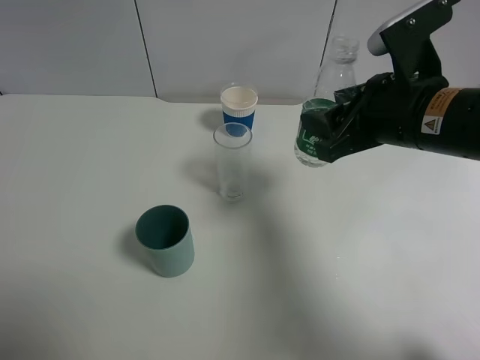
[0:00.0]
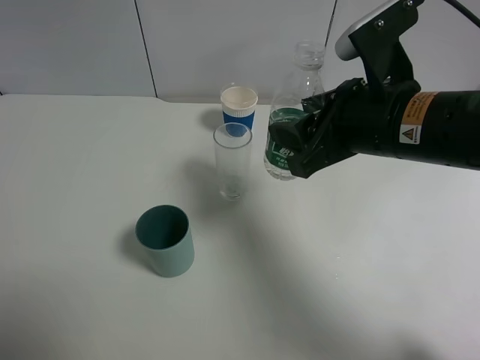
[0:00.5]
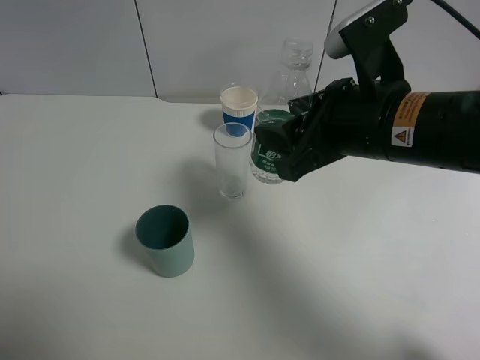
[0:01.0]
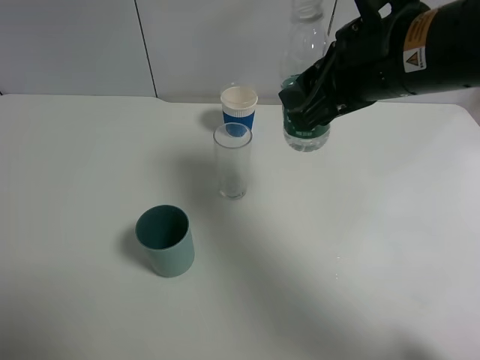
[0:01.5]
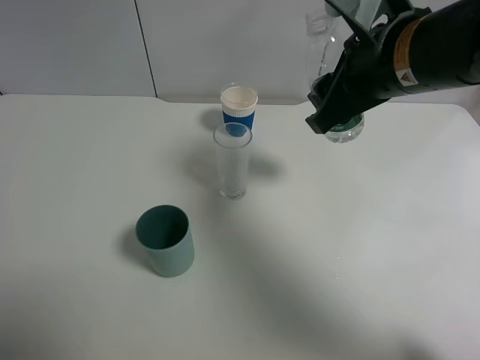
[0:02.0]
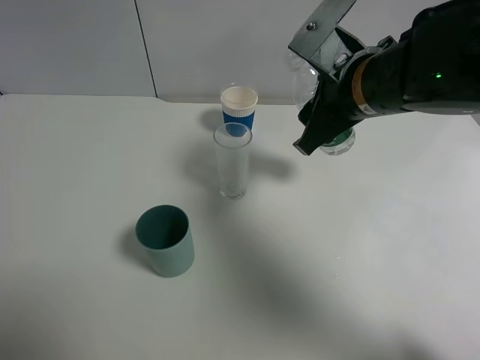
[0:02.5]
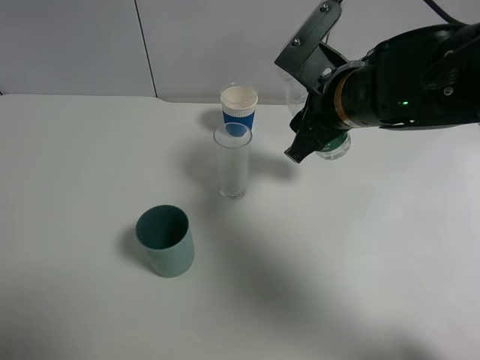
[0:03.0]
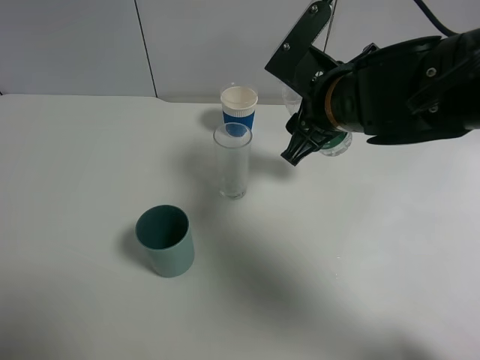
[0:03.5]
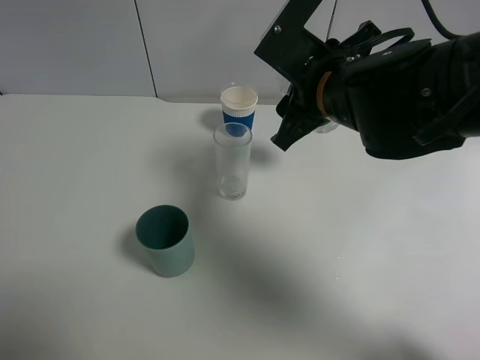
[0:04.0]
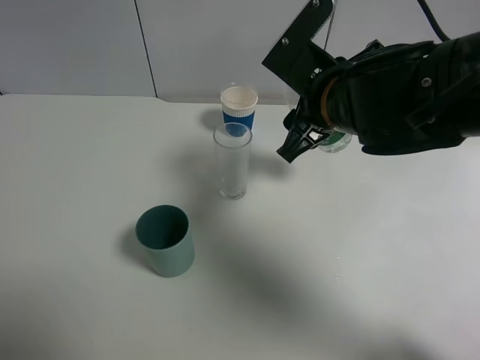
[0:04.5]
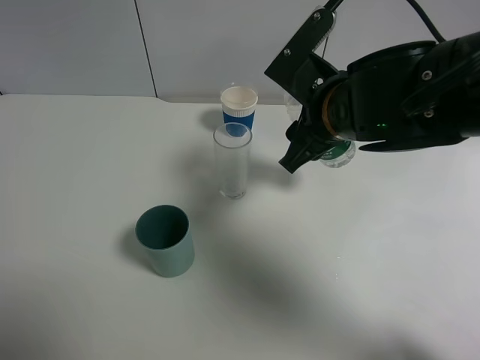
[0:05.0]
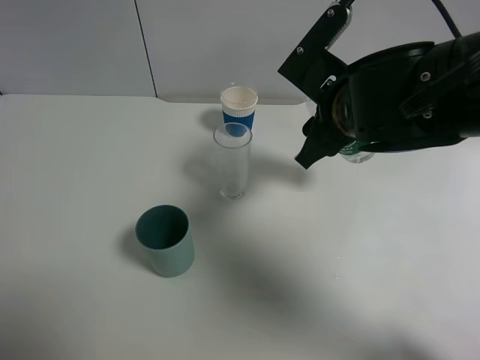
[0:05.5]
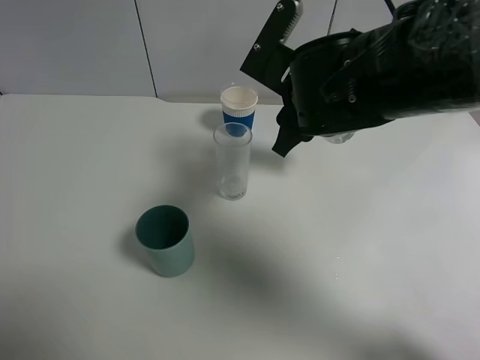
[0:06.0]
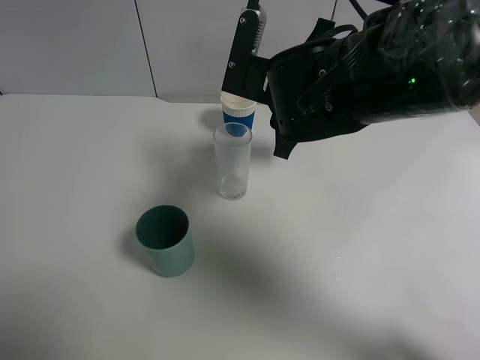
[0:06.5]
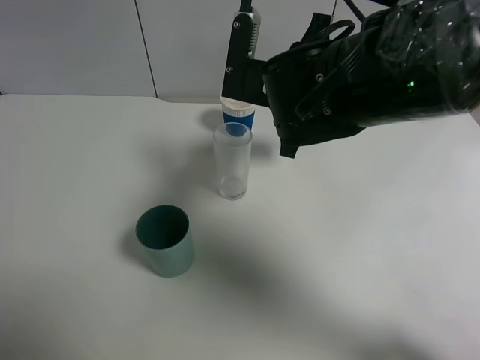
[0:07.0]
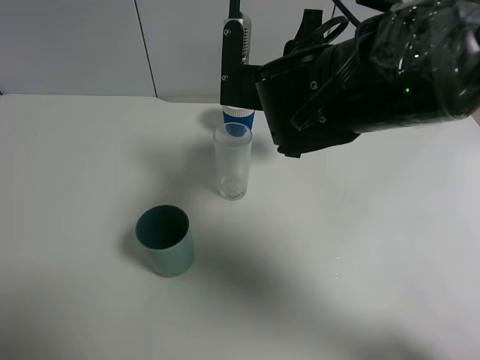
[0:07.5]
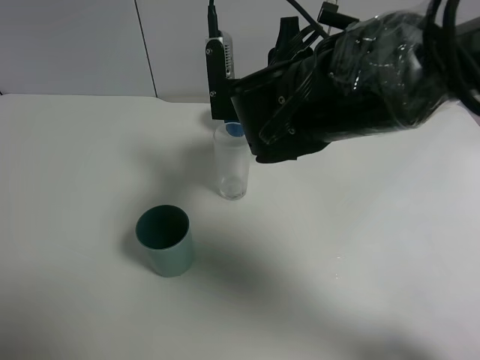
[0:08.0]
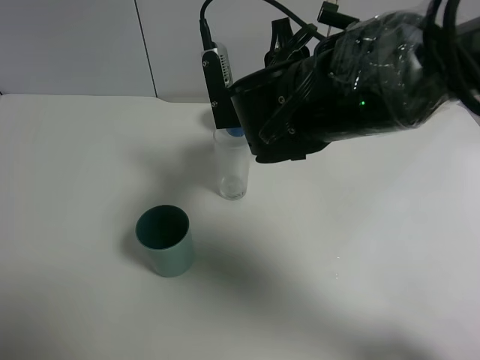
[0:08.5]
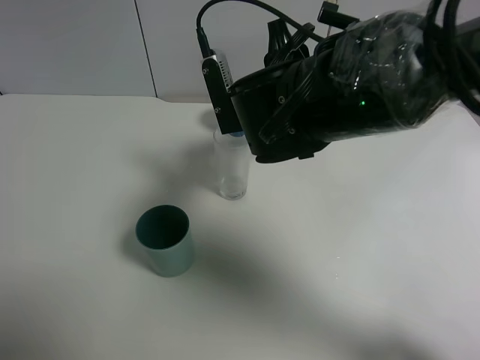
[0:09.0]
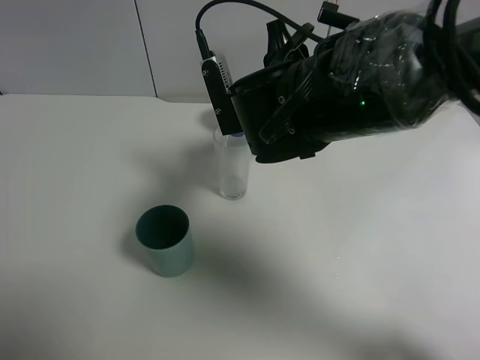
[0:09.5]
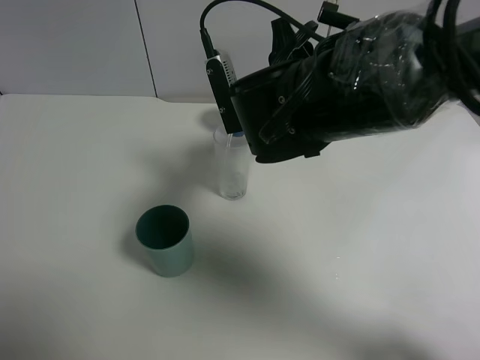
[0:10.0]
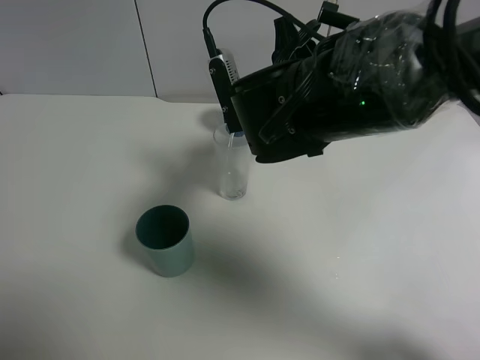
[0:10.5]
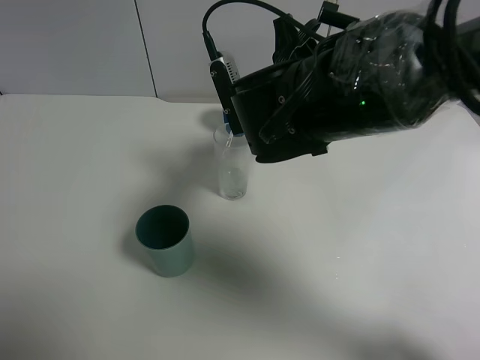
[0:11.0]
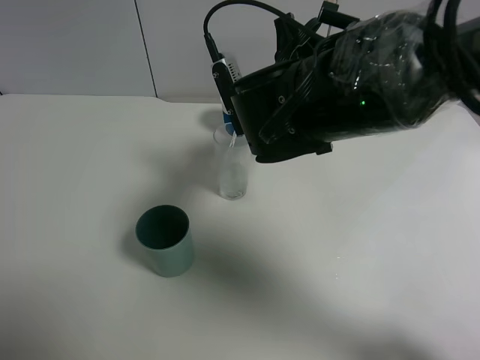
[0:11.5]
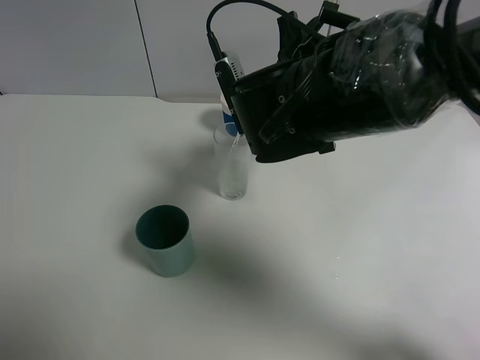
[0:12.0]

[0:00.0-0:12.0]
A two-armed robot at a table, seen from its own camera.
Task of the whole recording: use a gripper to hold the bottle of the drink and pour it into a random cup.
0:00.0 to 0:02.0: The right gripper shifts by approximately 5 cm.
0:02.0 to 0:04.0: The right gripper shifts by roughly 5 cm.
0:04.0 to 0:06.0: The grippers move only a little.
0:08.0 to 0:12.0: The grippers stay close to where they were, moving slightly.

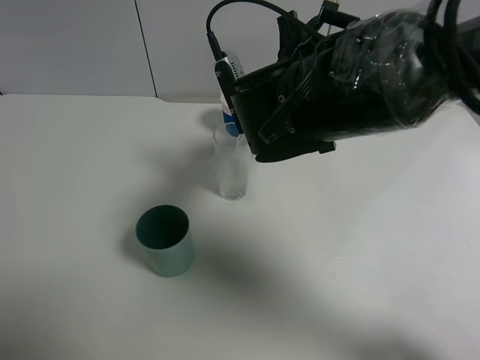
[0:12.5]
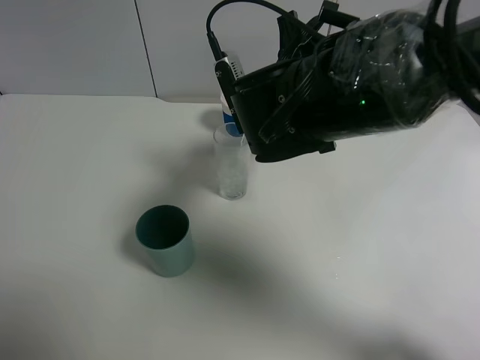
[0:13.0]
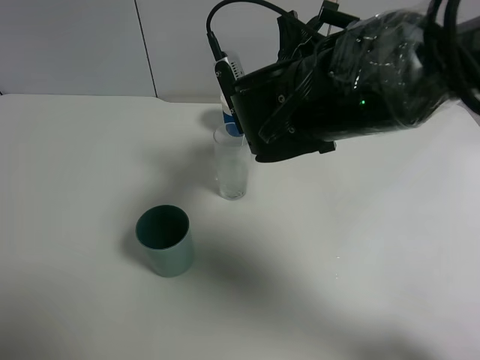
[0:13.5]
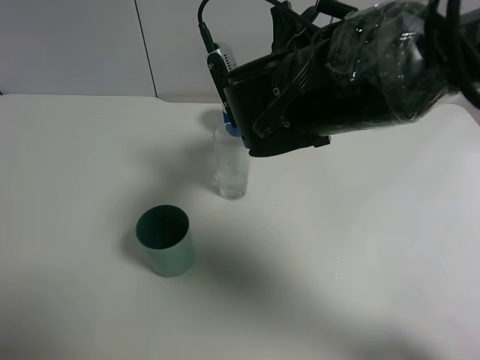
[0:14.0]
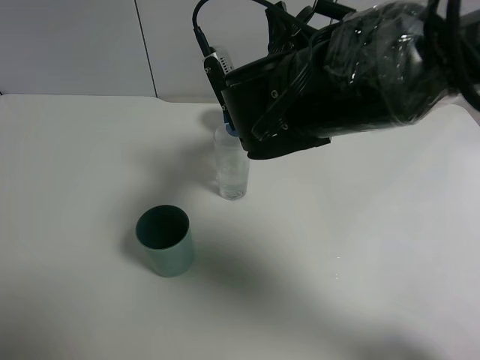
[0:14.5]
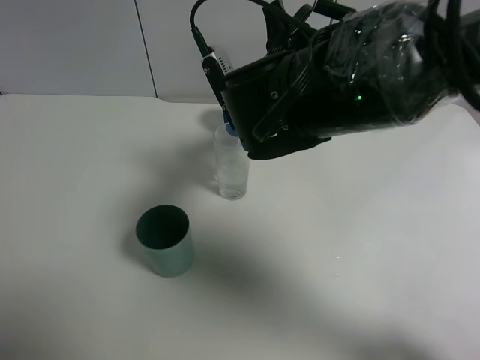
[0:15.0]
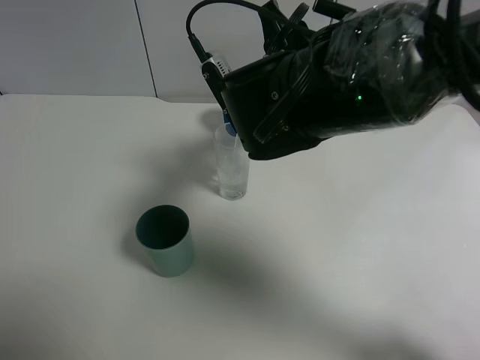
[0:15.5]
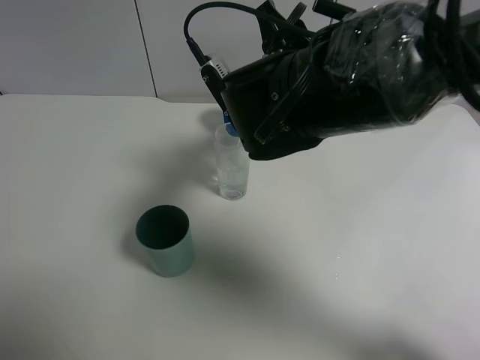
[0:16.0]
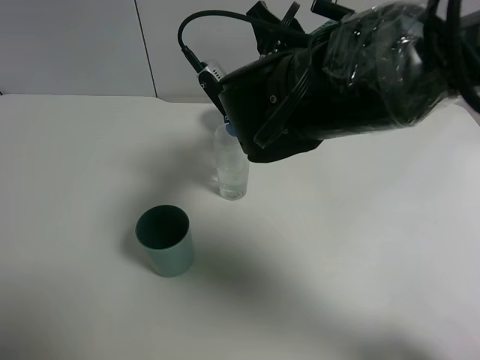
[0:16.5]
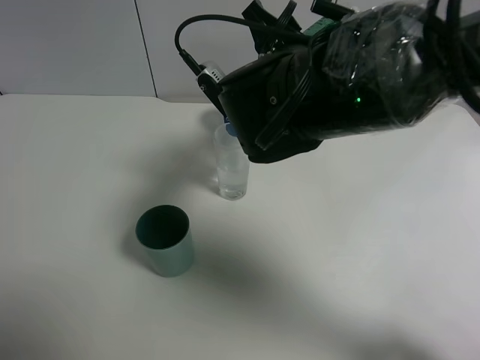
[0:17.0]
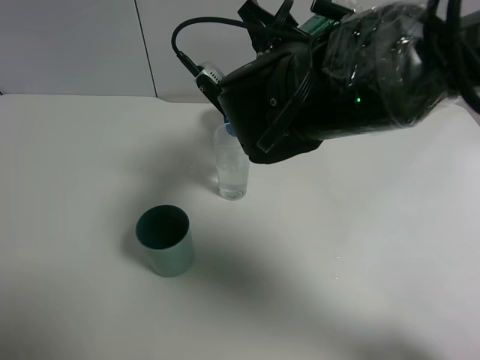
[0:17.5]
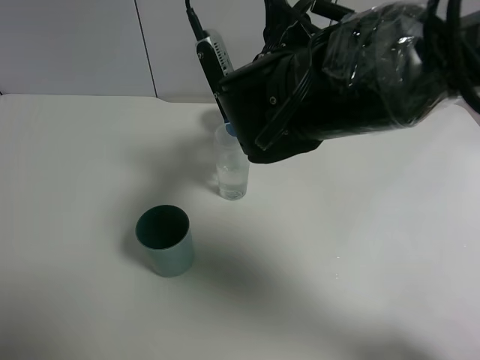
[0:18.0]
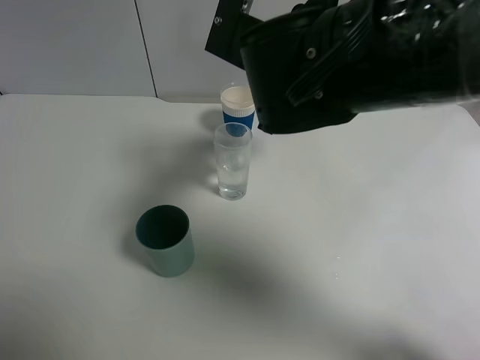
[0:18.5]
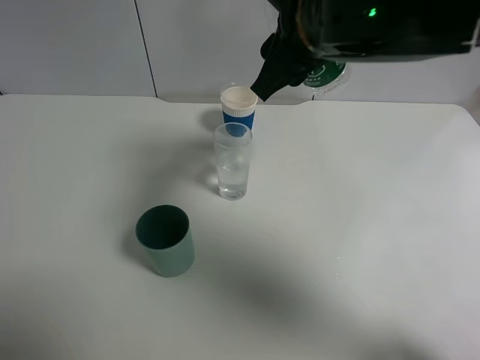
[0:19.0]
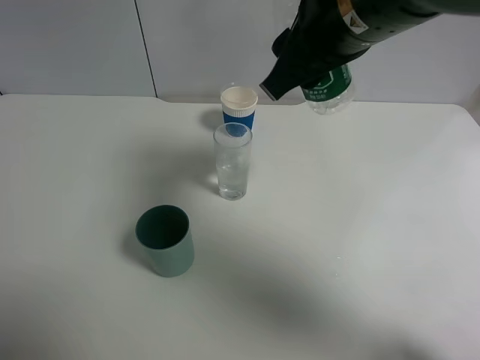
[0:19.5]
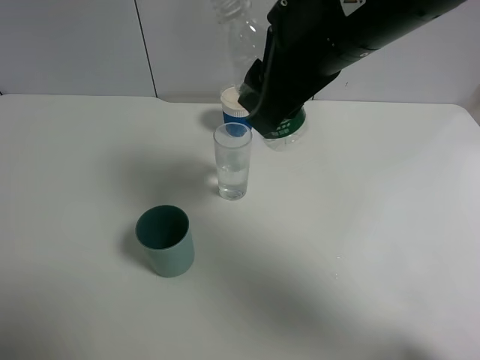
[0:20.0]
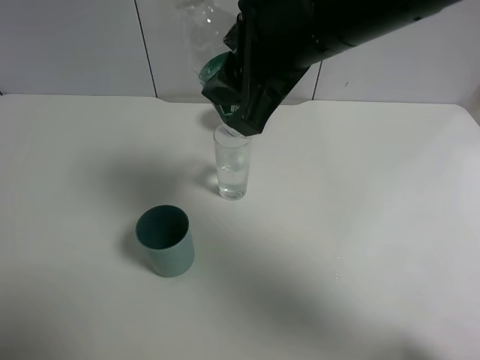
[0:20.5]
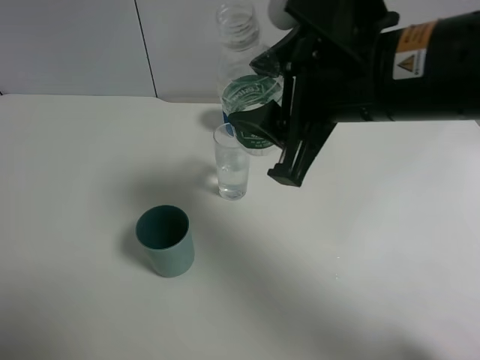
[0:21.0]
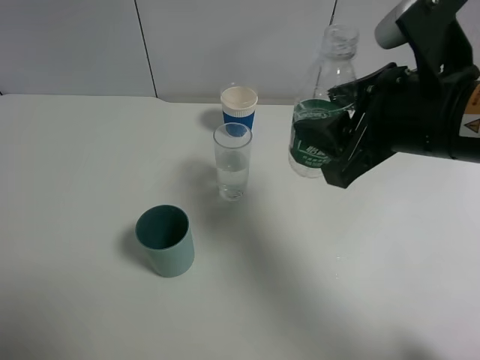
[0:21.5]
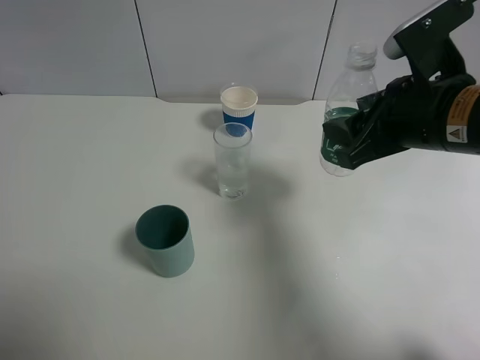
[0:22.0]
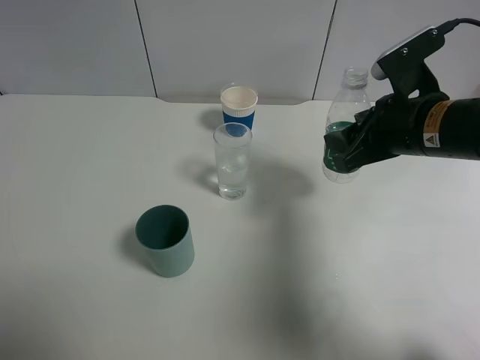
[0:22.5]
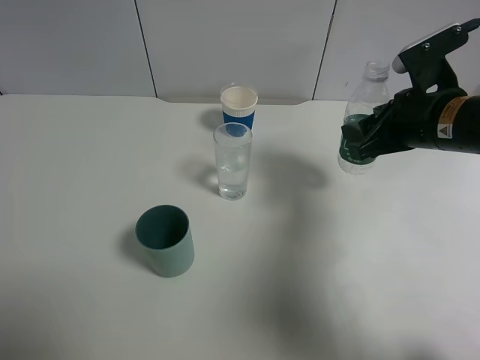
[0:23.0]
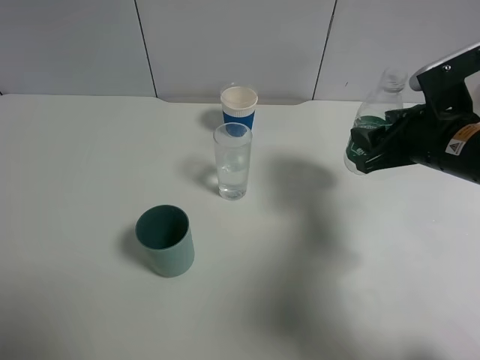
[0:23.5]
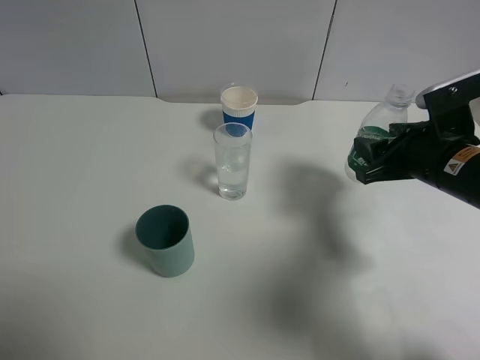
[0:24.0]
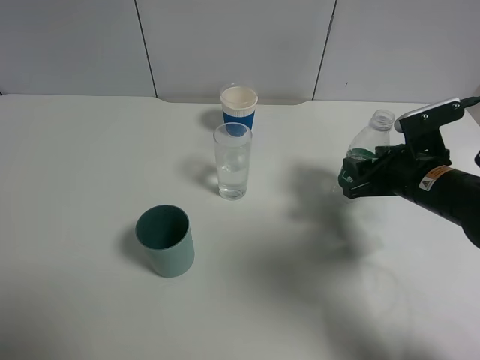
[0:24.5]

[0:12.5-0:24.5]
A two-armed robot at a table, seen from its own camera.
Task of the whole recording: use a gripper to hold the bottle of the drink and pour it into a random cup.
Step, 0:12.5 to 0:18.5: Pour the mineral water into the glass with the right gripper.
0:12.5 to 0:14.5: Neither gripper changes place.
0:14.5 to 0:16.5: There are only small adjustments of the grippers.
0:18.5 to 0:20.5: The right gripper shifts about 10 cm upward and backward.
0:20.5 to 0:22.5: The right gripper is displaced to the right and downward by approximately 20 cm.
0:22.5 to 0:24.5: The right gripper is displaced downward by approximately 10 cm.

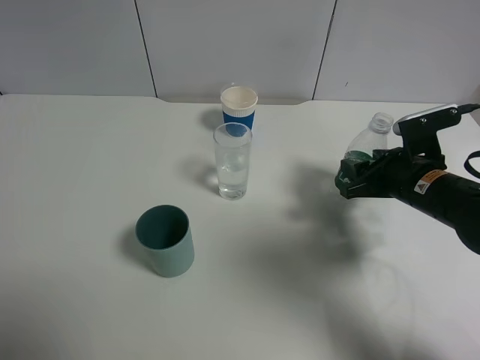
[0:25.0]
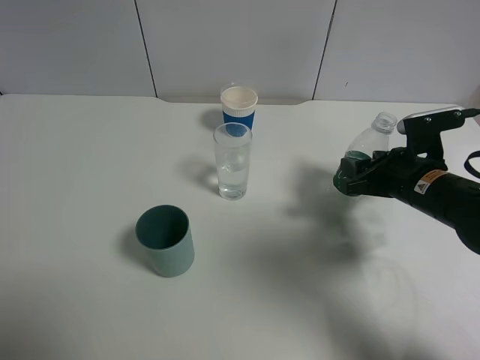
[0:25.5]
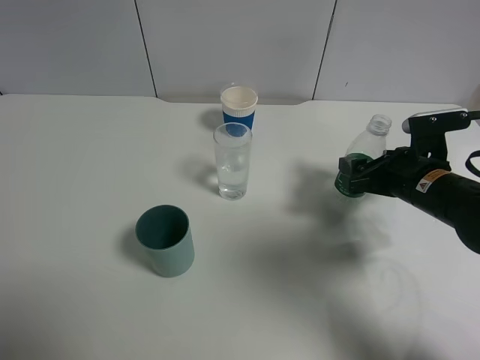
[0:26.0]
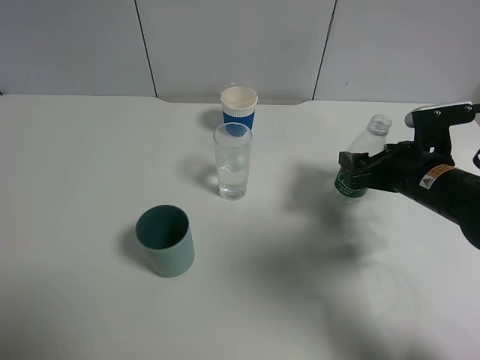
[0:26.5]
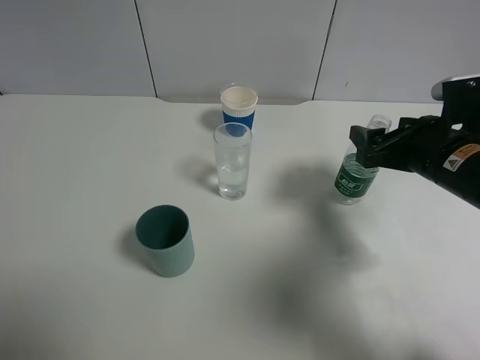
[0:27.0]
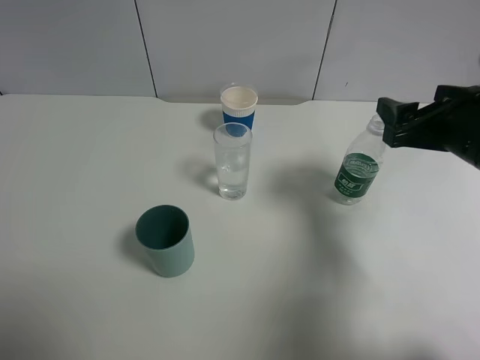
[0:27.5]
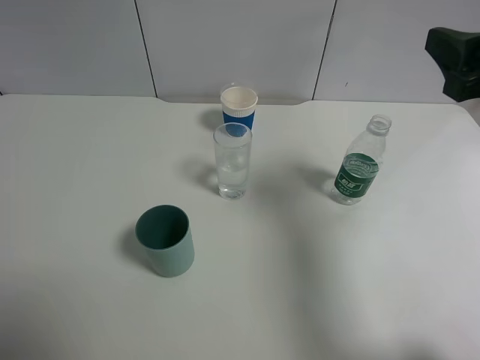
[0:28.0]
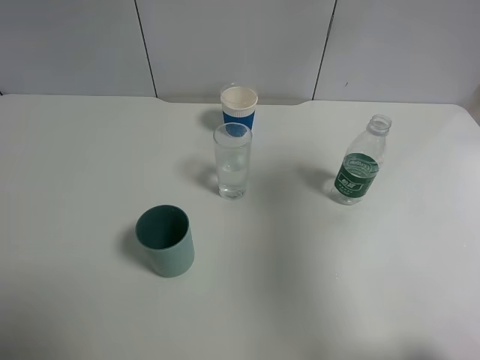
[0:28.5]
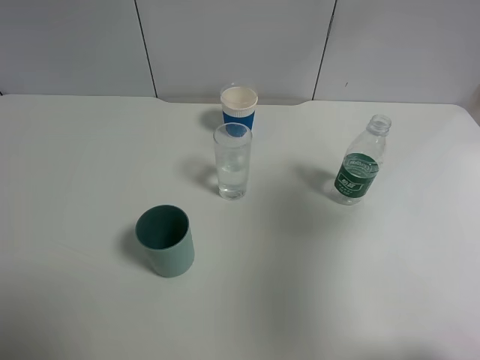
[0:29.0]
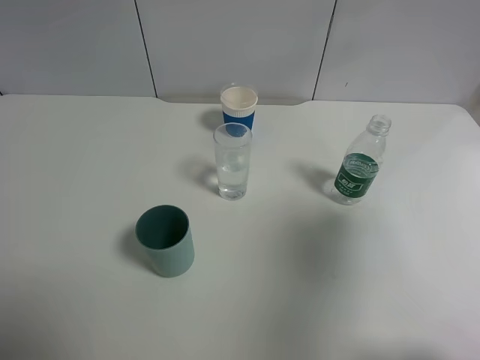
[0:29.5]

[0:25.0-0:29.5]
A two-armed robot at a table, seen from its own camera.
Task of the whole recording: use a gripper to hold the bottle of the drink and pour it into a random cup.
Step, 0:25.0 to 0:27.0: Place the mineral water bottle on the table with the right gripper.
0:25.0 to 0:27.0: The right gripper goes some 5 cm upward, and opens its fingers.
0:27.0 to 0:29.5: The right gripper moves upward and backward, roughly 30 cm.
